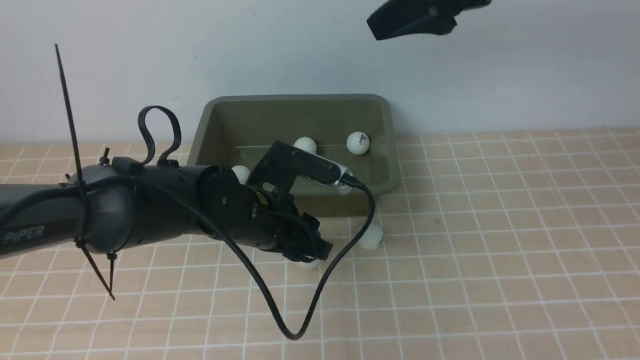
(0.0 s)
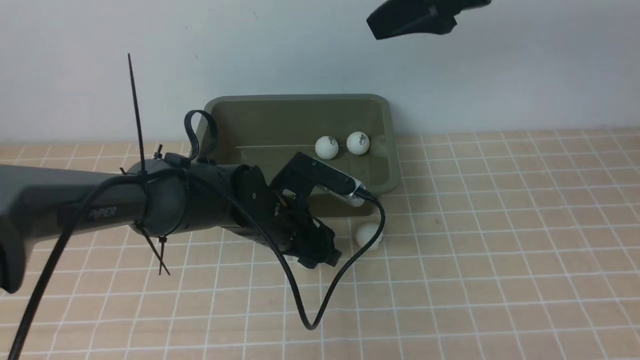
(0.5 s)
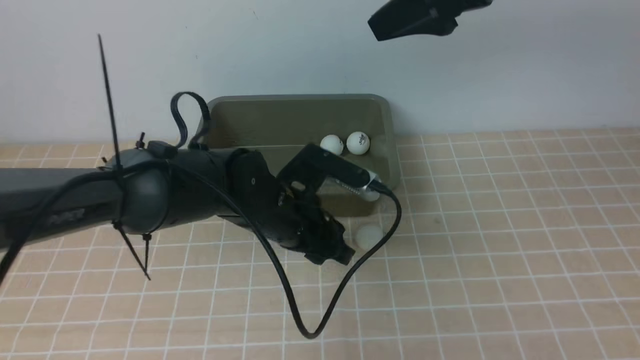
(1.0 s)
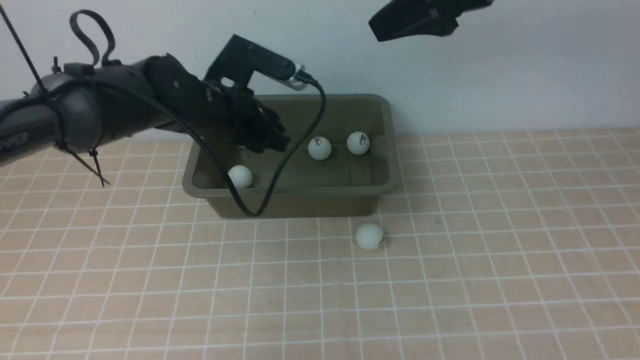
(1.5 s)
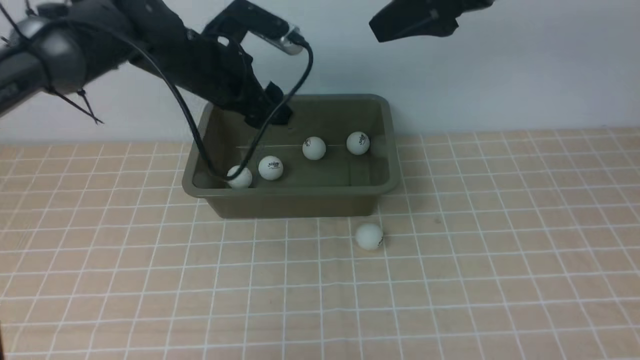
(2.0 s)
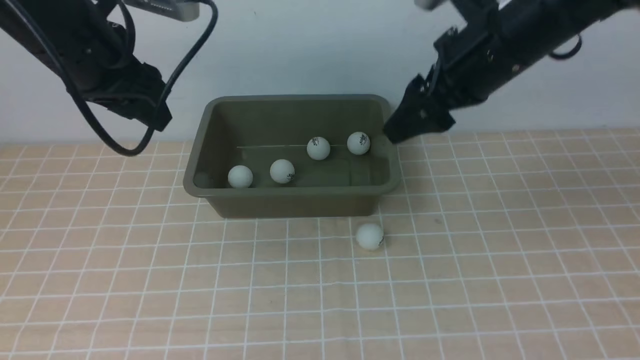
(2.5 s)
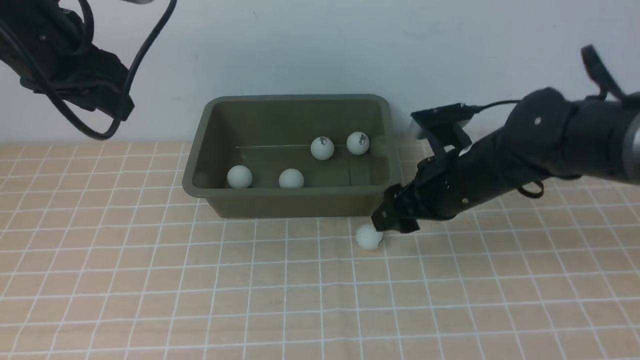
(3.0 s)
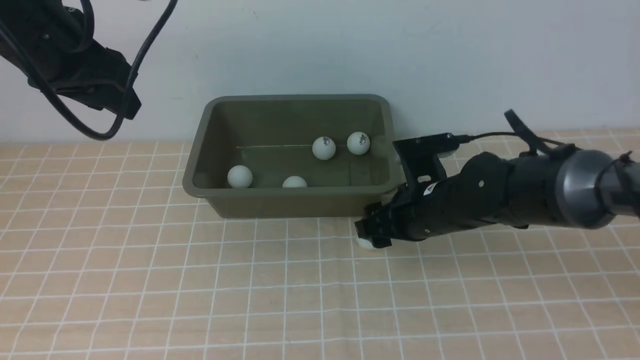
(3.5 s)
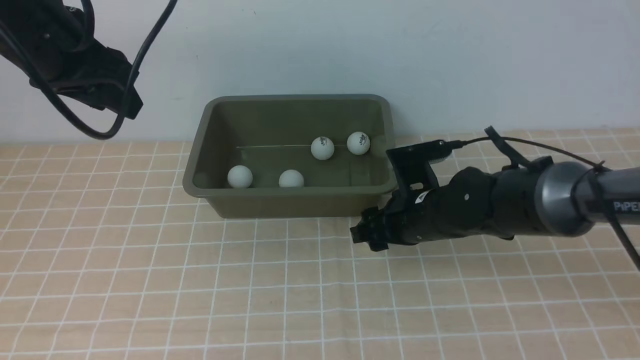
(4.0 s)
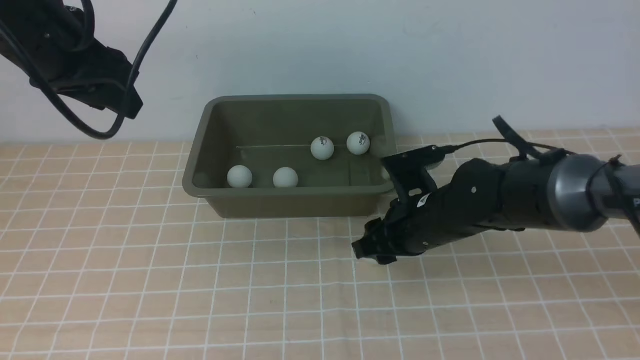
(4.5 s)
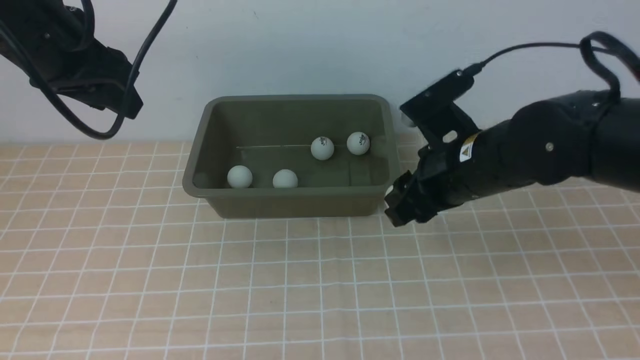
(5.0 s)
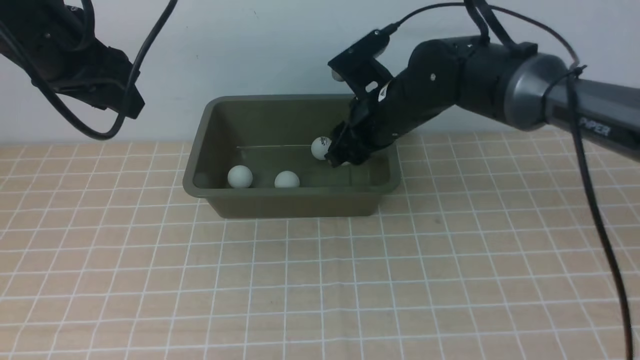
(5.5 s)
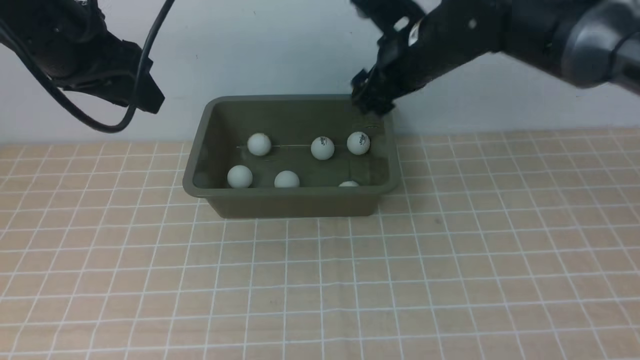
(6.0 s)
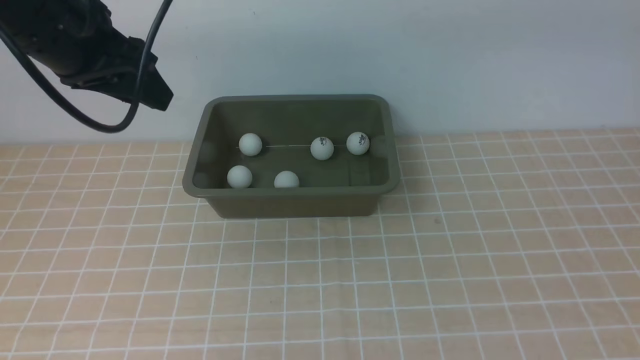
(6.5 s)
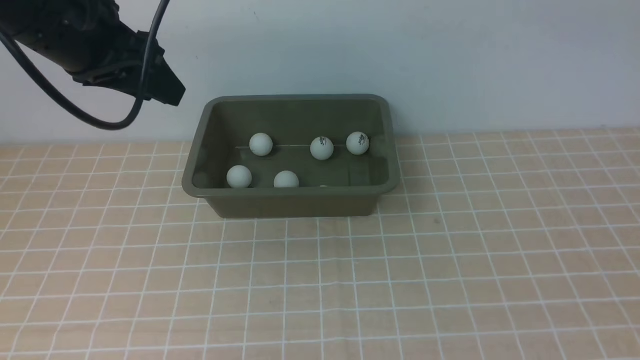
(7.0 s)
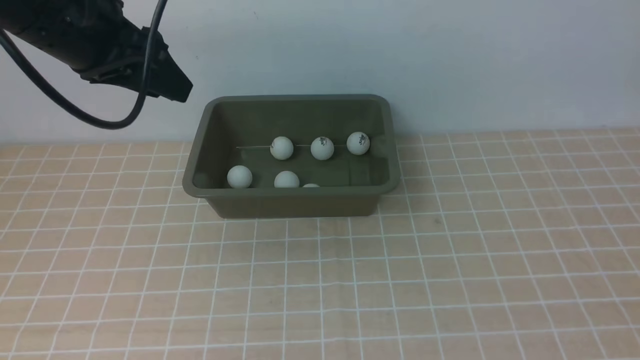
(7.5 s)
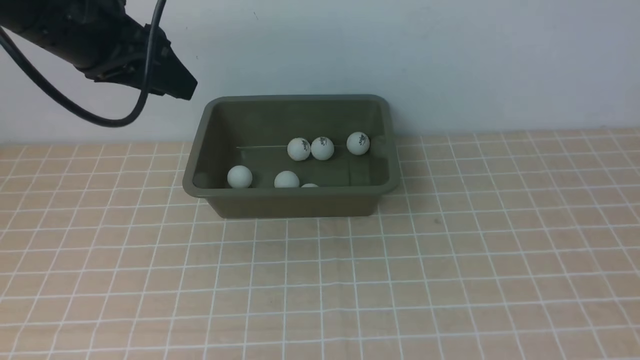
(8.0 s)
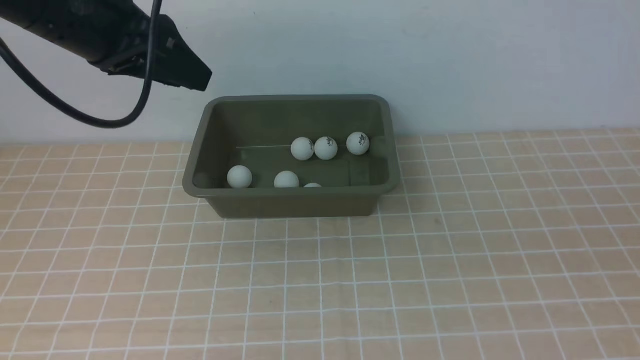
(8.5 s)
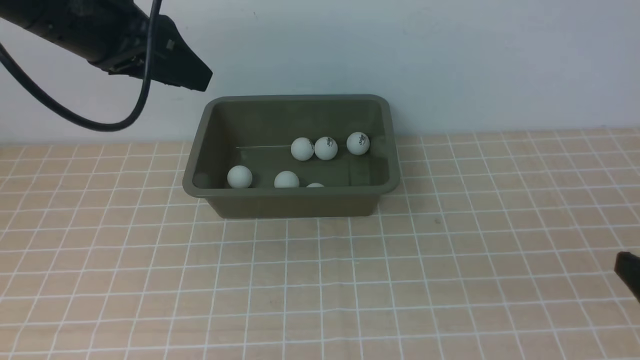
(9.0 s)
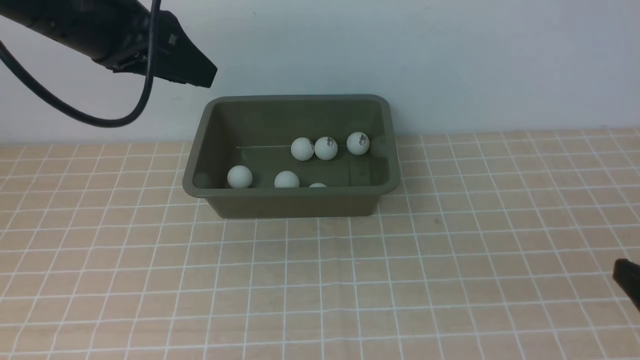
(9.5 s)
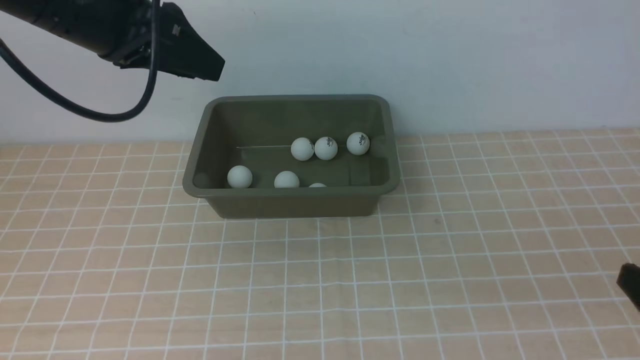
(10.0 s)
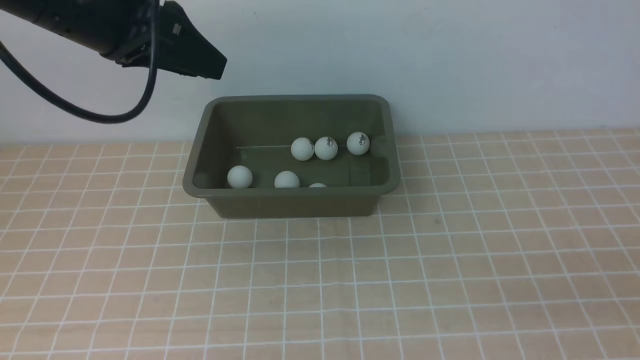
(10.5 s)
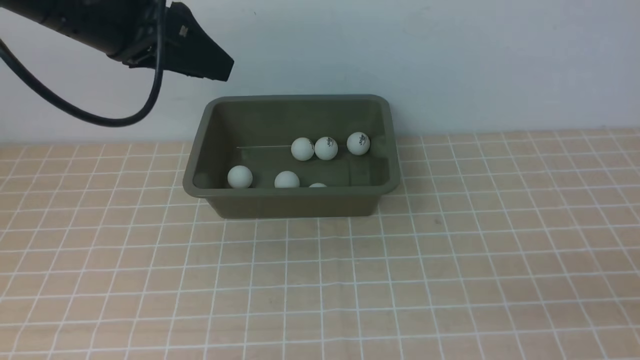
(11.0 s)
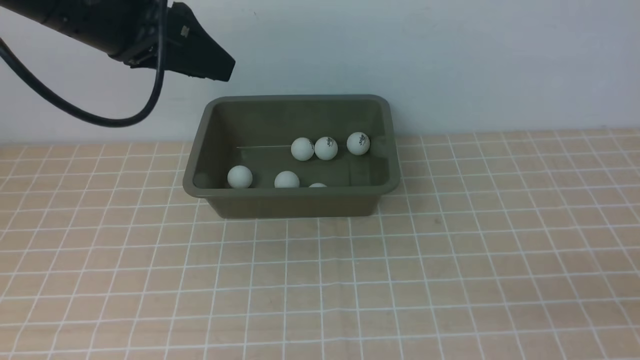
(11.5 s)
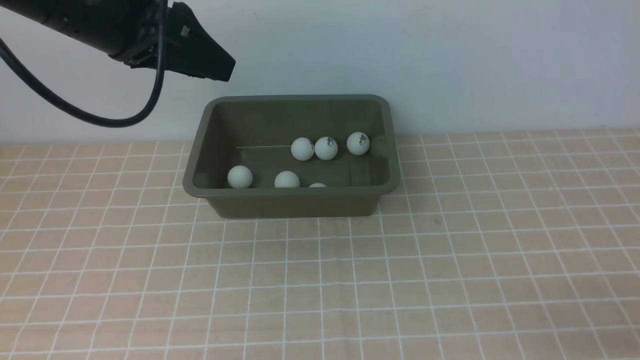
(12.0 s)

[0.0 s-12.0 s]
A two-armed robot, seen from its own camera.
Step, 1.0 to 1.5 s: use the left arm to put the table tennis ball into the box.
Step, 2.0 to 4.5 s: use the right arm to clamp the table tennis ball closest to it.
Step, 5.0 to 6.5 s: use the right arm to put the table tennis ball into the box.
0.0 to 2.0 s: The left gripper is displaced upward, forward and to the left by about 20 cm, and opens.
2.0 to 4.0 s: The right gripper is displaced downward by about 30 cm. Meanwhile the left gripper heads to the left, backward and upward, covering about 15 cm, and closes up.
4.0 to 6.0 s: The right gripper heads upward, covering about 20 cm.
6.0 to 8.0 s: The right gripper moves backward and to the right, approximately 30 cm, and closes up.
8.0 to 10.0 s: The right gripper moves downward, about 15 cm.

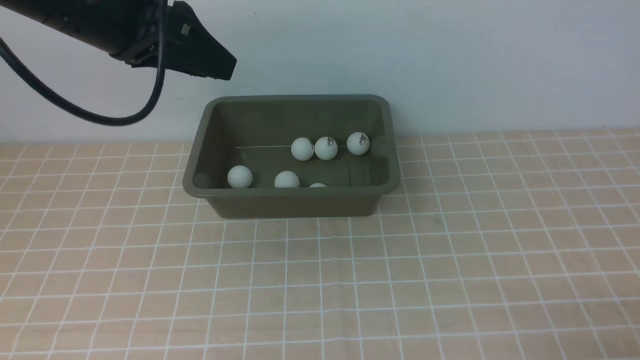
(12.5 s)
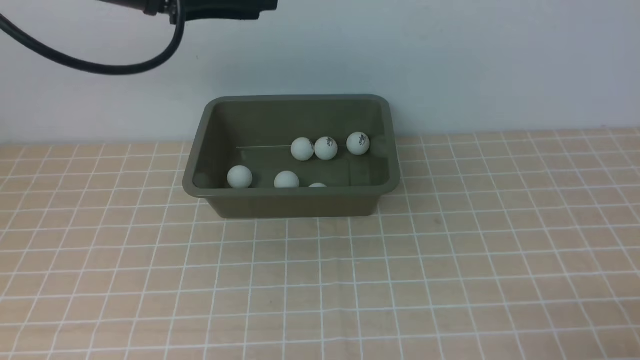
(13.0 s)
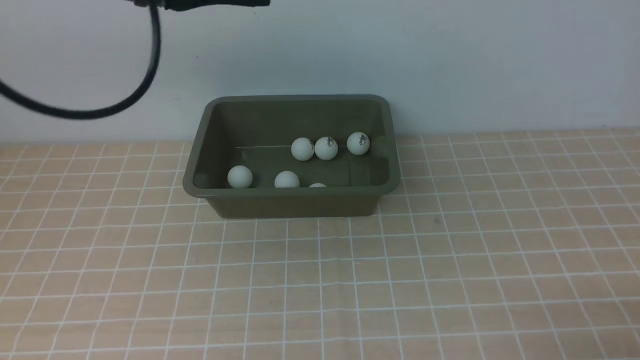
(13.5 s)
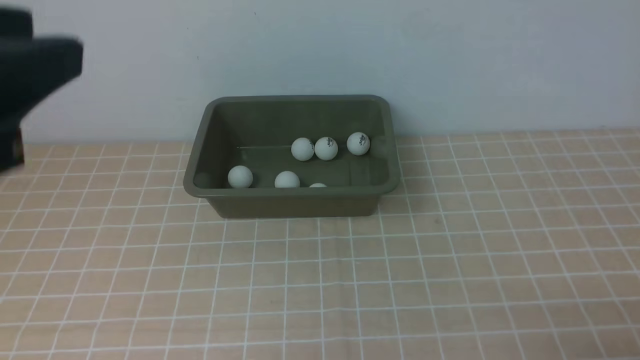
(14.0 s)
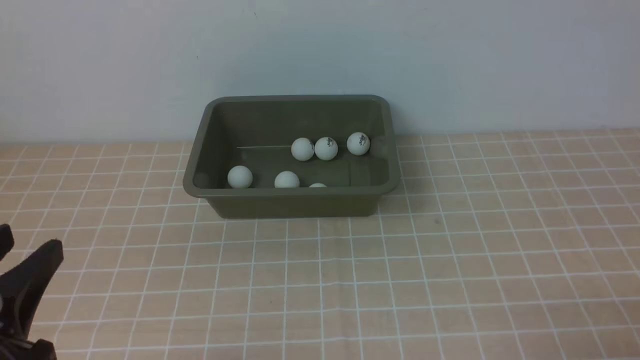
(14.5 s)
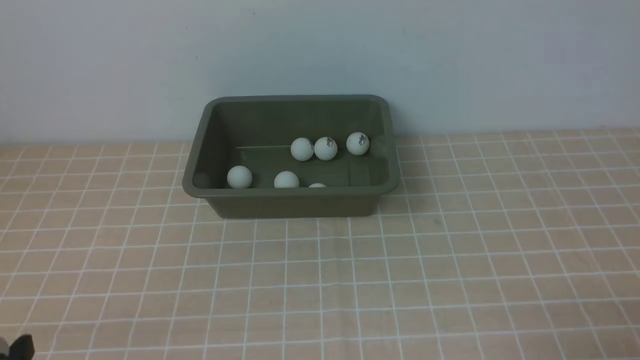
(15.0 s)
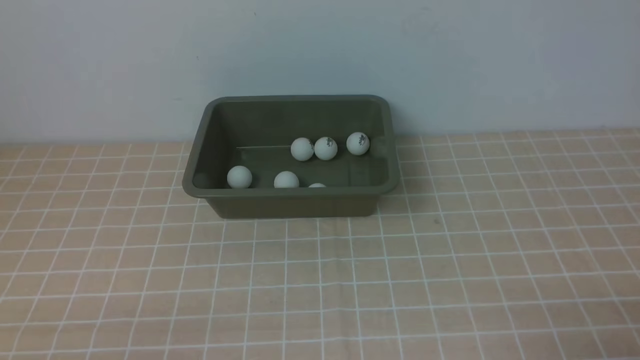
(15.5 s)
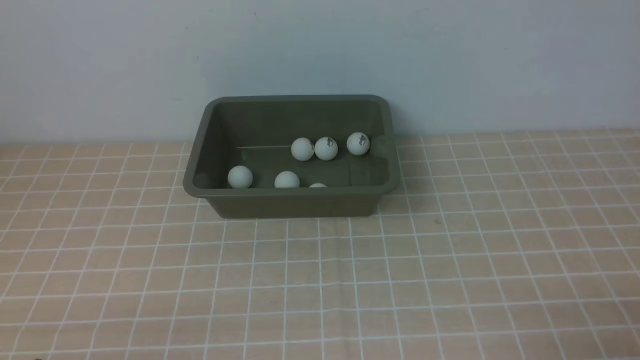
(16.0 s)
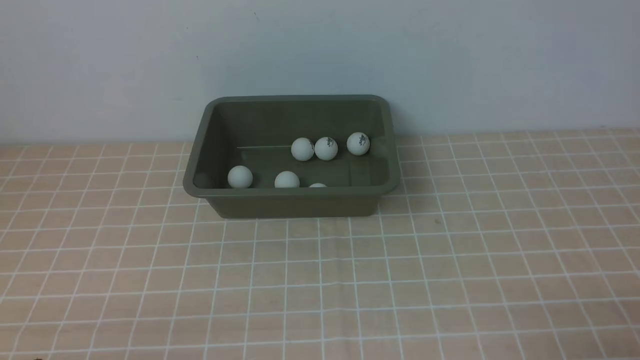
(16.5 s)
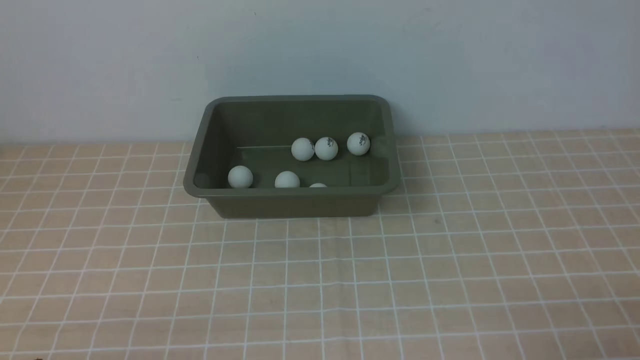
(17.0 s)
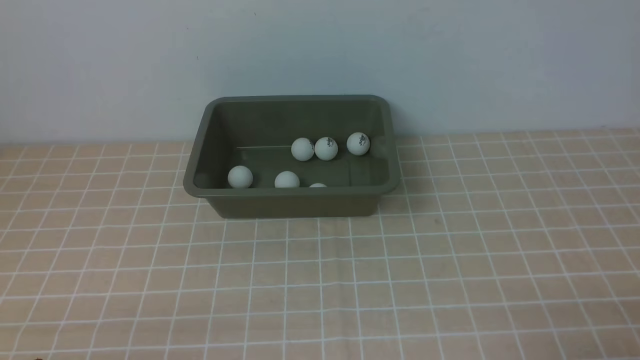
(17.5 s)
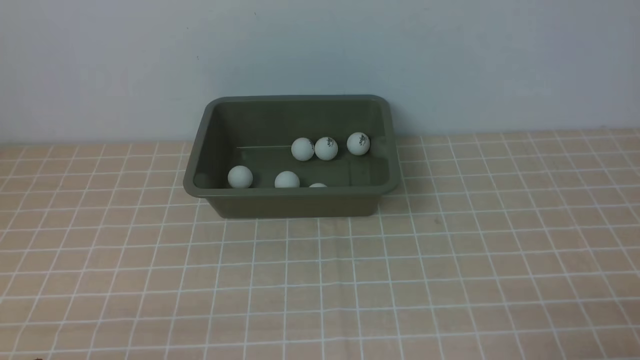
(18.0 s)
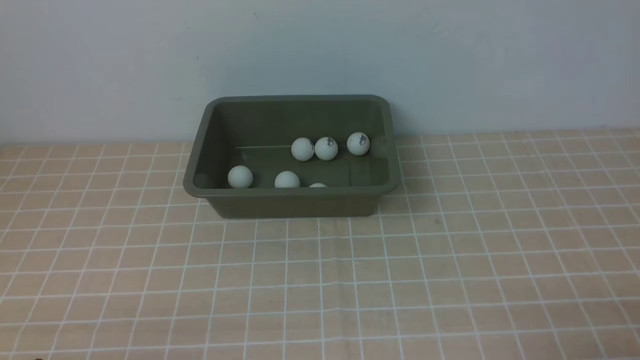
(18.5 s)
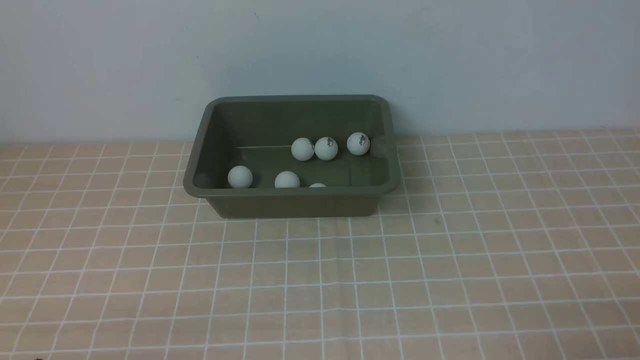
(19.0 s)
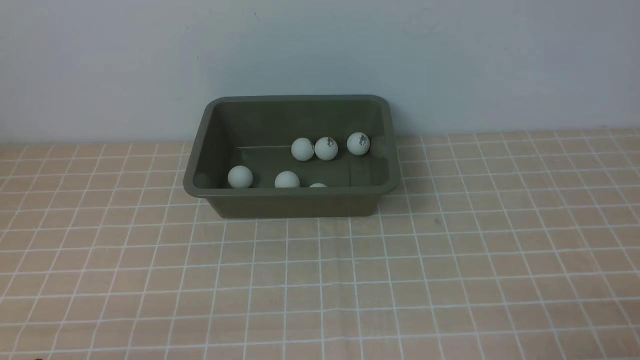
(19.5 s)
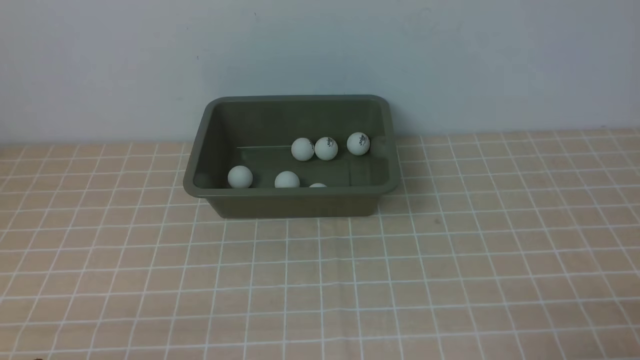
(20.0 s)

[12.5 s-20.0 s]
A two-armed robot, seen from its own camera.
12.5 to 14.5 s: The left gripper shifts about 30 cm backward and downward.
14.5 to 16.5 s: The left gripper heads downward, covering about 10 cm.
18.0 to 20.0 s: Both grippers stay put.
